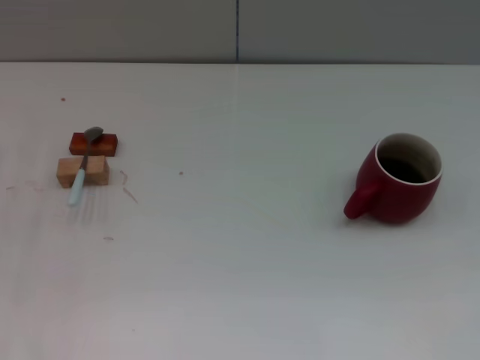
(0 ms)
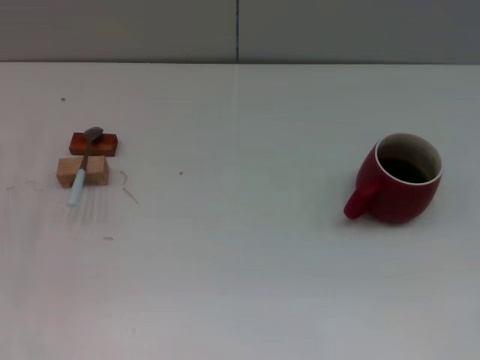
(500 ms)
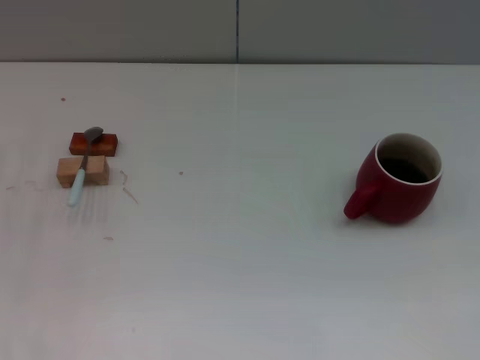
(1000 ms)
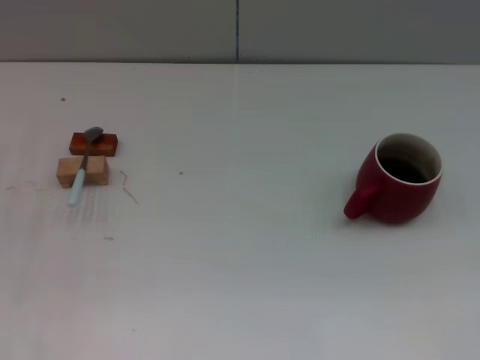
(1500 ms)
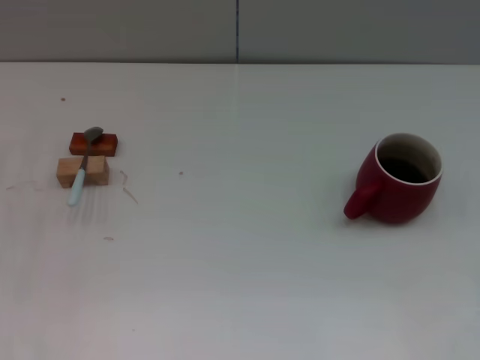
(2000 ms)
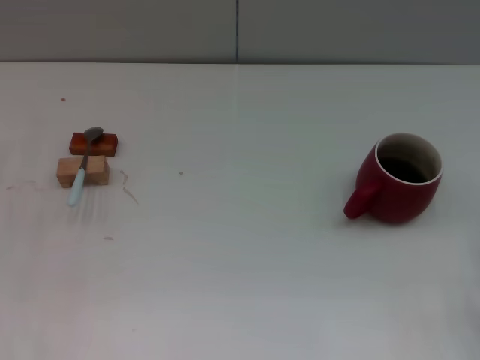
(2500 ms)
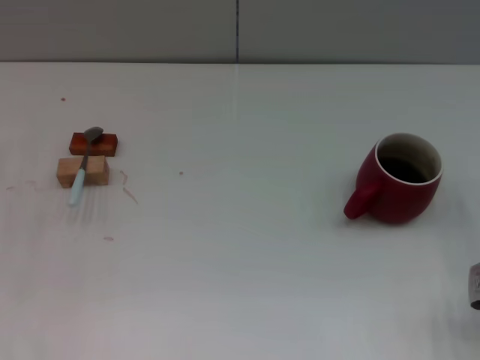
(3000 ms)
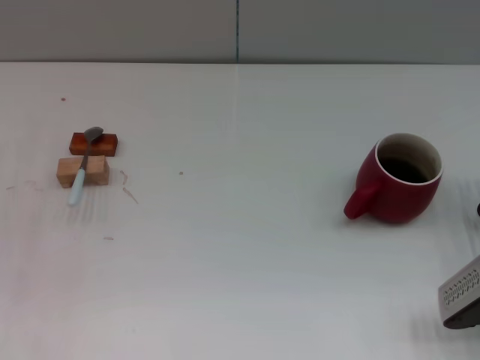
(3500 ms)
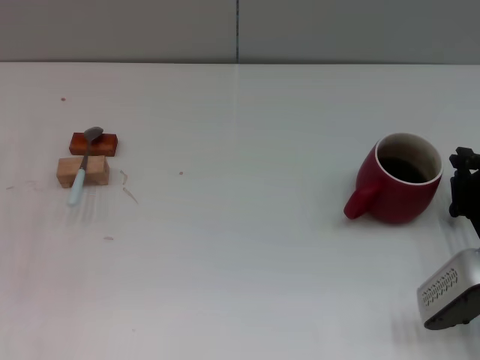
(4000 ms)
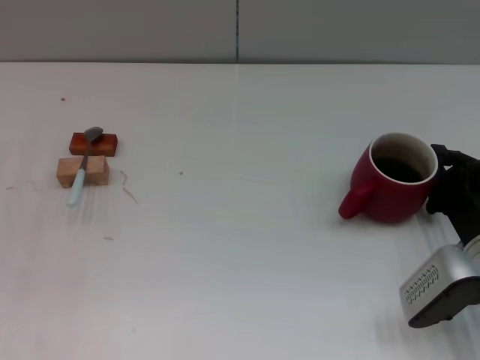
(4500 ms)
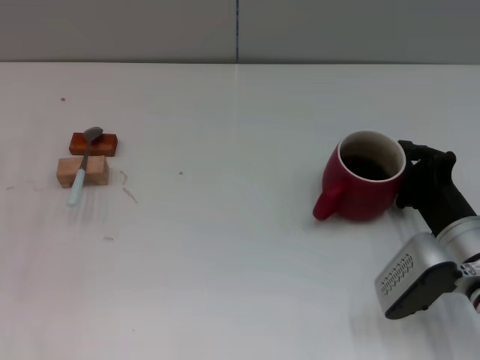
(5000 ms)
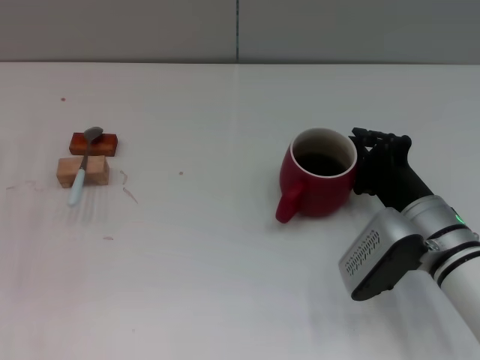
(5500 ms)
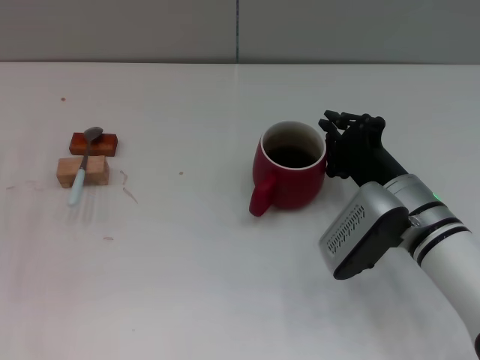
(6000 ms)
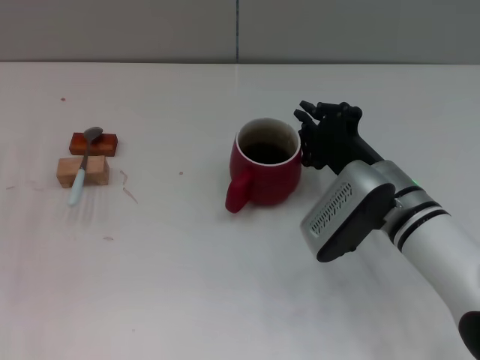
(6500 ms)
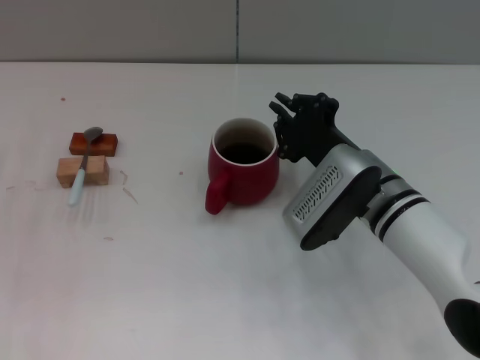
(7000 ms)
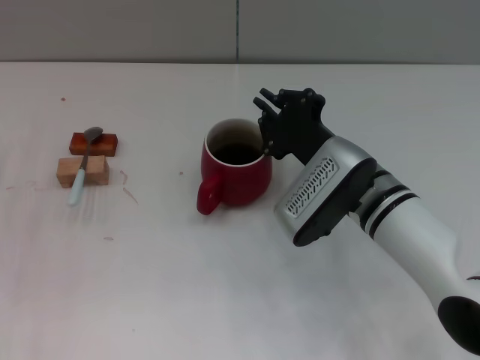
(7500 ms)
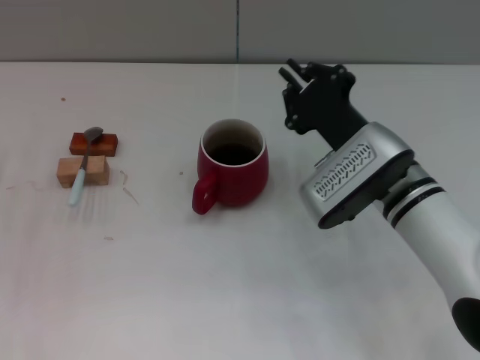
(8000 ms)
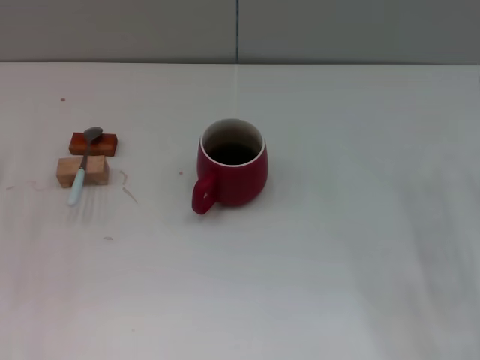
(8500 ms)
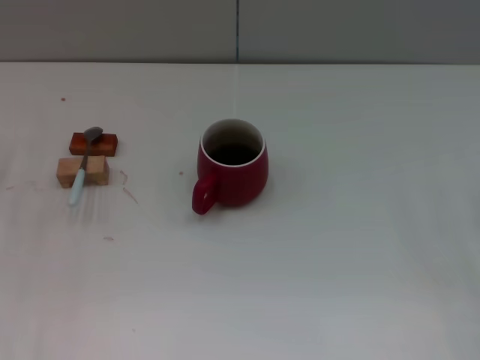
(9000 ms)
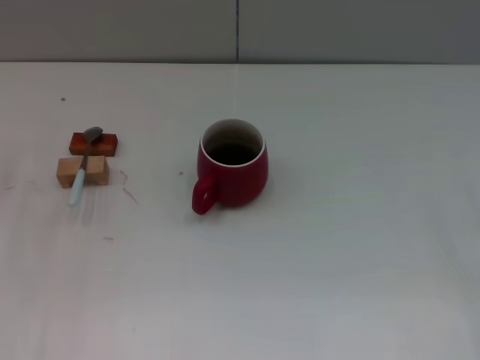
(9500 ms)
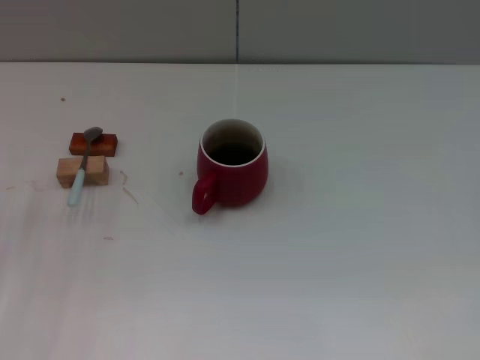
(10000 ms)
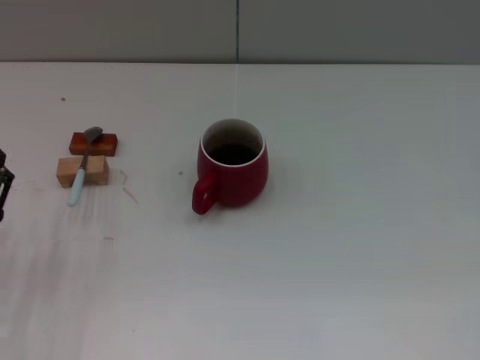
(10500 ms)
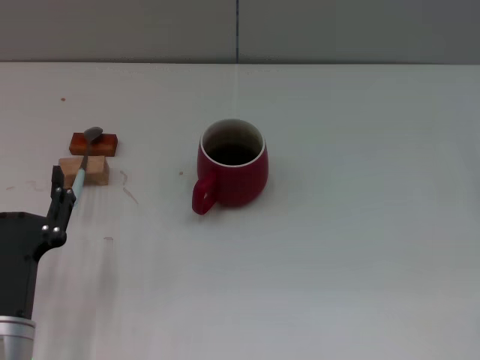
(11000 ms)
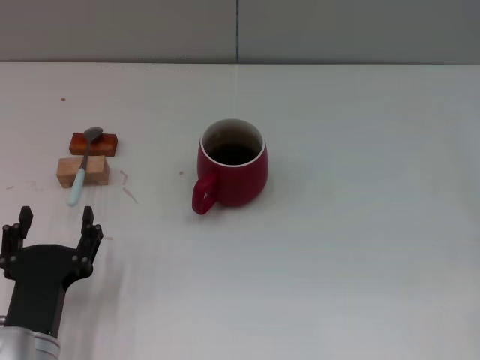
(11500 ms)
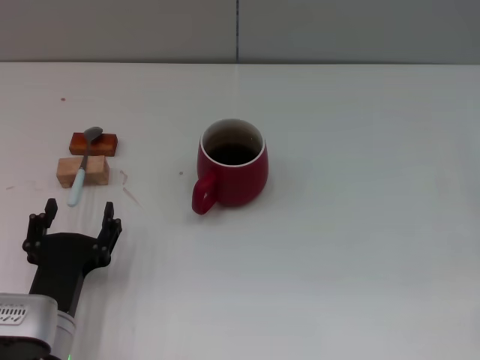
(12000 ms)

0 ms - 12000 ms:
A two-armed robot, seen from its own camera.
Task of the whole recording: Move the red cup to the center, lift the blue spoon, stir it three times in the cup, and put the spoon into the cup.
Step, 0 ms - 8500 ms: Move the cup with coffee to the center of view with the right gripper.
2000 ms - 4000 ms: The right gripper goes roughly 10 cm to the left and downward.
4000 ms - 6000 ms: The right gripper is displaced to the left and forward by roughly 10 cm.
6000 ms - 8000 ms: The right gripper shifts by some 5 cm.
8000 ms - 10000 ms: The left gripper heads backward, covering roughly 5 cm. The right gripper shifts about 25 cm to the right, and opens up.
10000 ms - 12000 ms: The left gripper heads to the right and backward, covering about 15 cm.

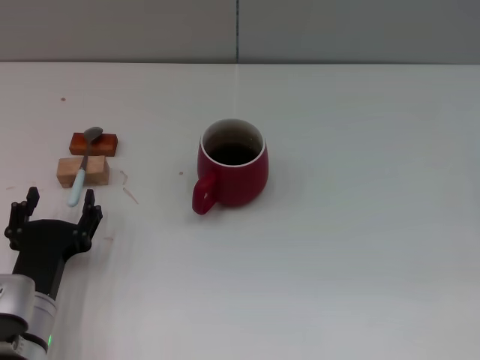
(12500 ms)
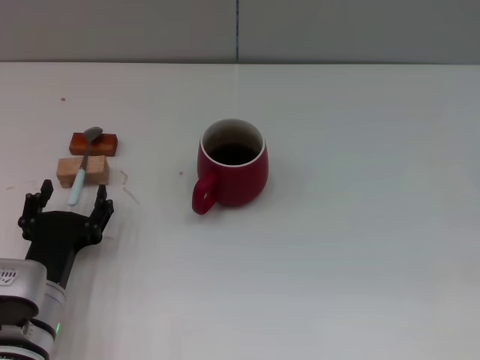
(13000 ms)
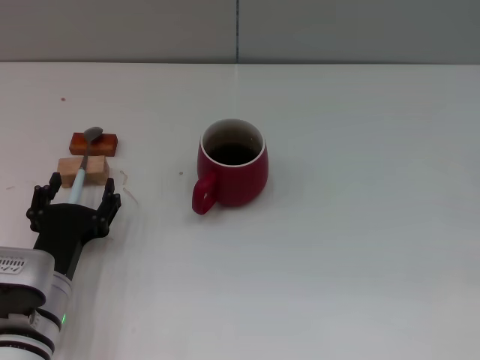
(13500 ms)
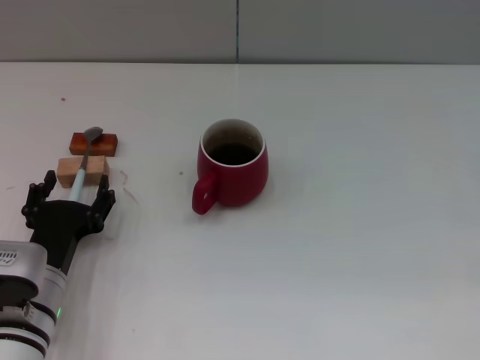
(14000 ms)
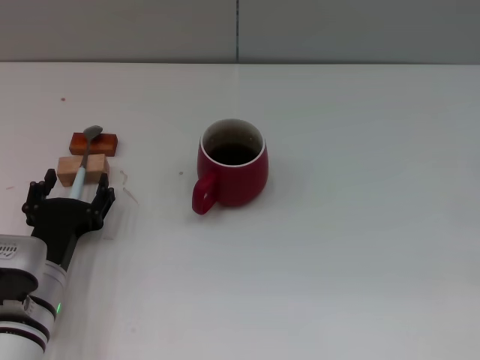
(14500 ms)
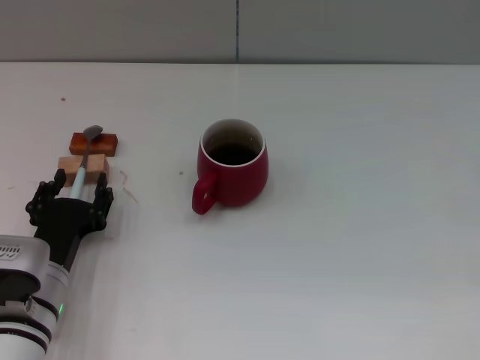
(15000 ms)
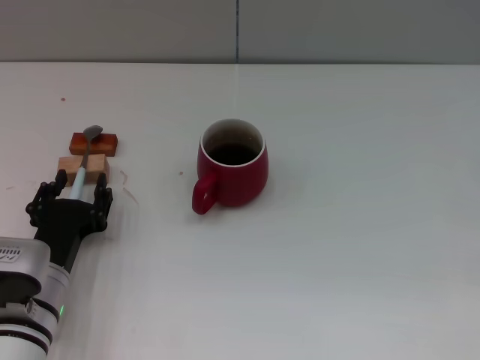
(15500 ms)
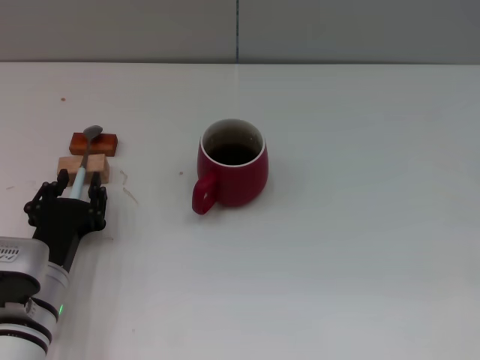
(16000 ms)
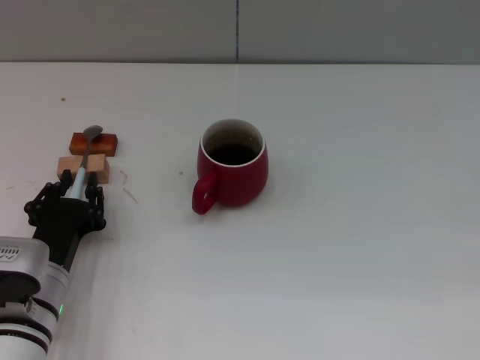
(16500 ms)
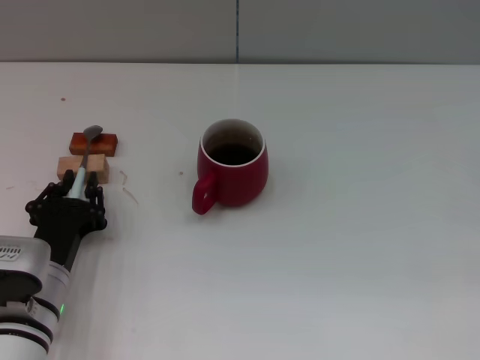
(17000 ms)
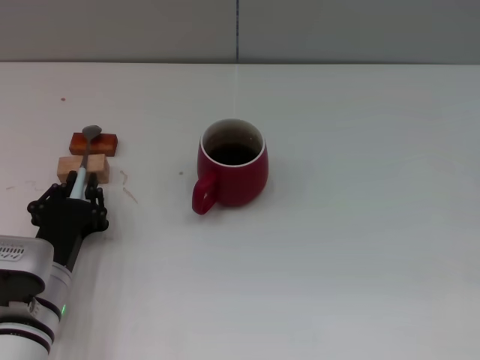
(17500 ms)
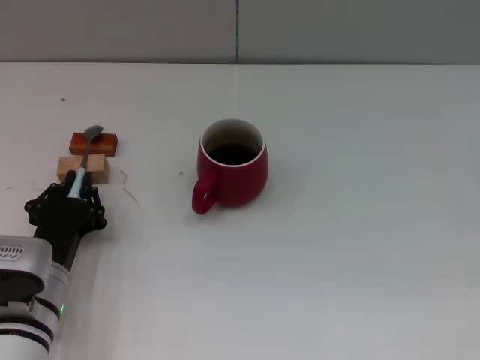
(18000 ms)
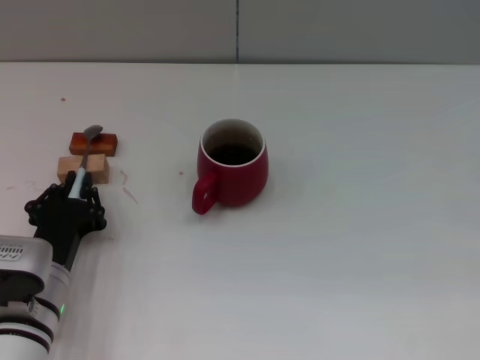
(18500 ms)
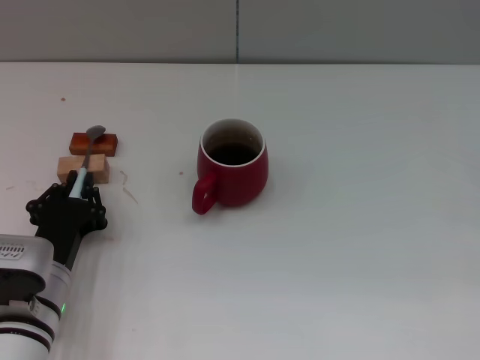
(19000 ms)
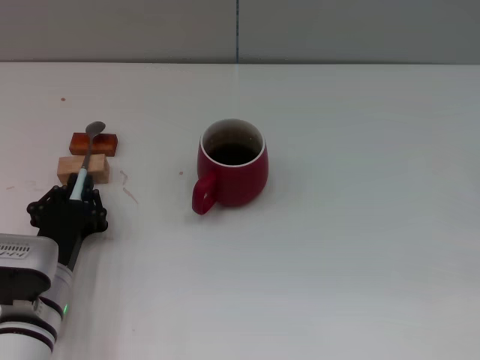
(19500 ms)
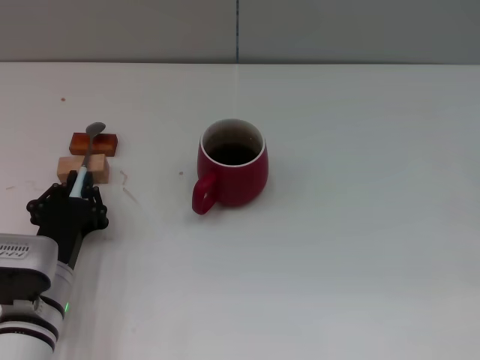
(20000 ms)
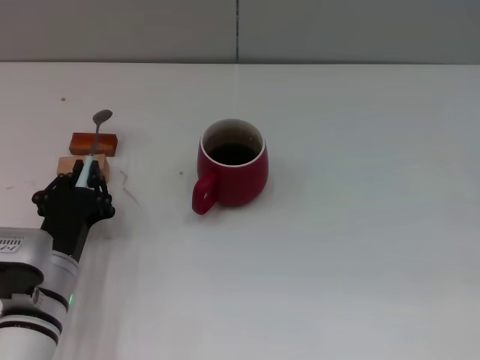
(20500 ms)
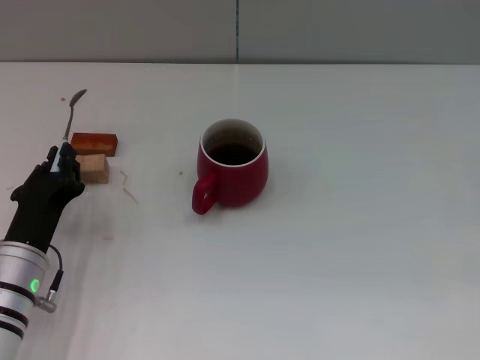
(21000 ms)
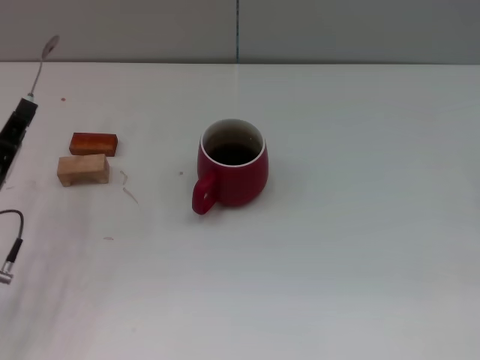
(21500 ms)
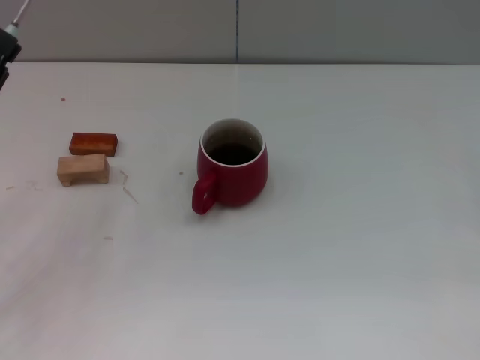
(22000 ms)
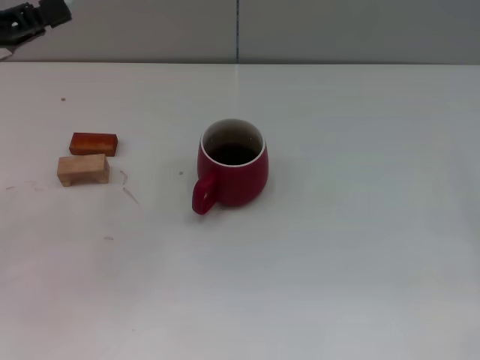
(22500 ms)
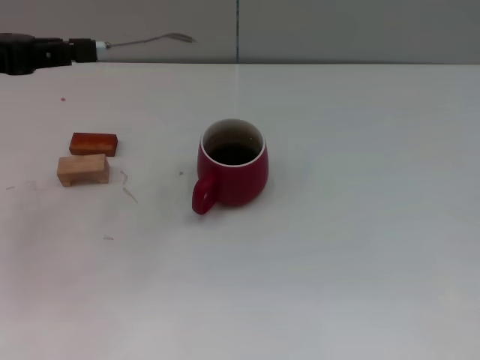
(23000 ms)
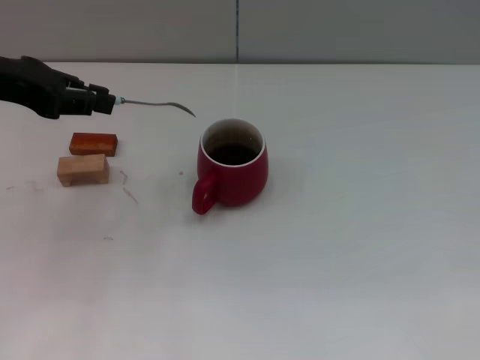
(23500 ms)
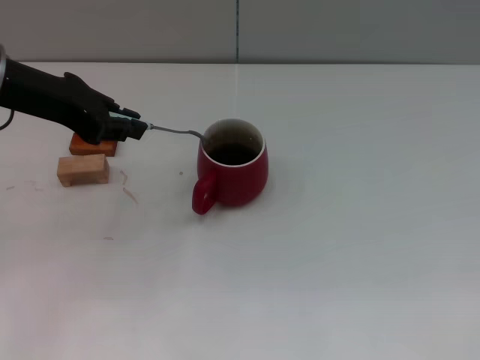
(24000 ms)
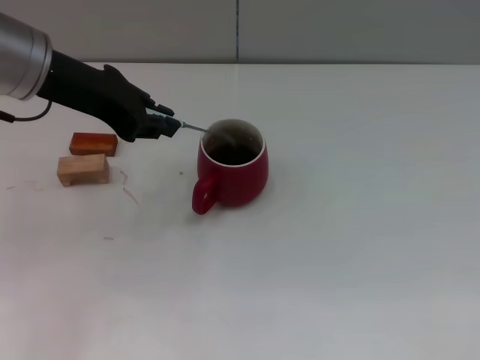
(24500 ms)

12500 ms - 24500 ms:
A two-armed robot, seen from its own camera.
Task of the whole recording: Move the red cup to the center, lift the blue spoon, stir it three times in the cup, and put the spoon into the cup.
Step, 12500 ms - 20500 ms: Pick up the spoon with the left gripper.
12500 ms - 14500 ms: The grippers stay close to where they were, moving slightly.
14500 ms - 16500 ms: The left gripper closes its fingers.
16500 ms - 18500 ms: Both grippers stay put.
18500 ms - 20500 ms: Both grippers stay about where they are.
20500 ms - 22500 ms: The left gripper shifts some 25 cm upward, to the left and forward.
22500 ms - 24500 ms: The left gripper shifts about 15 cm to the right, forward and upward.

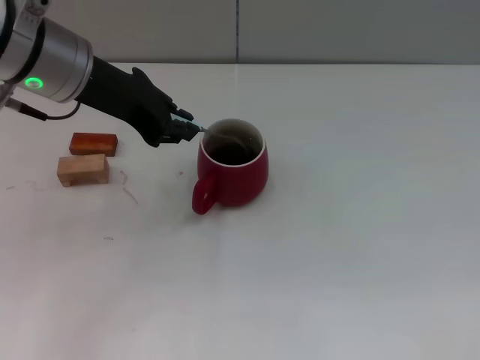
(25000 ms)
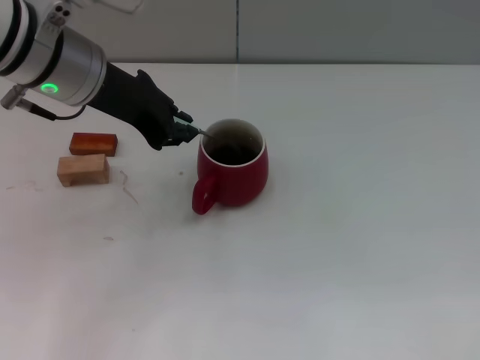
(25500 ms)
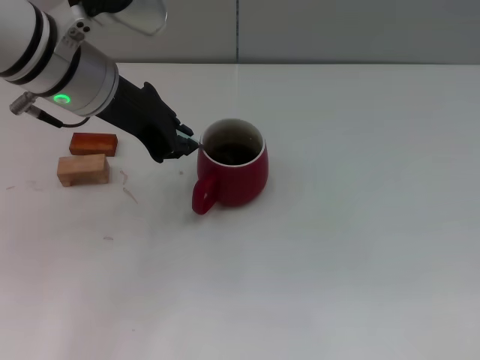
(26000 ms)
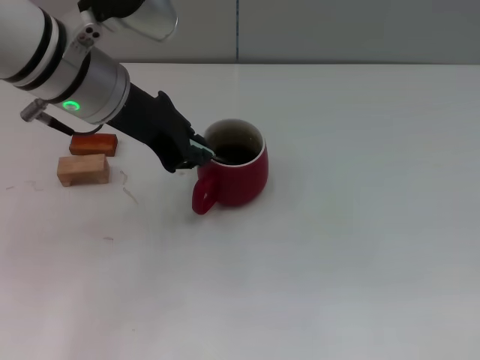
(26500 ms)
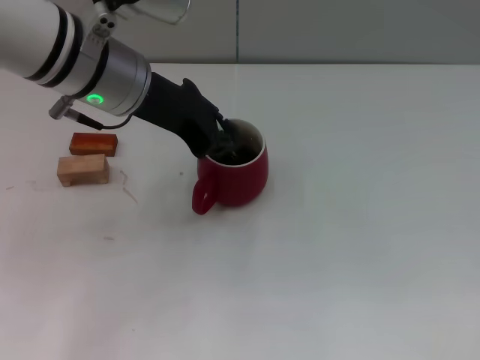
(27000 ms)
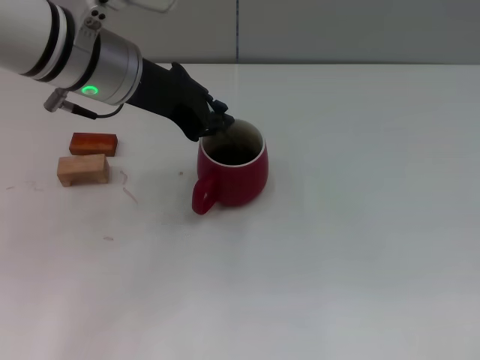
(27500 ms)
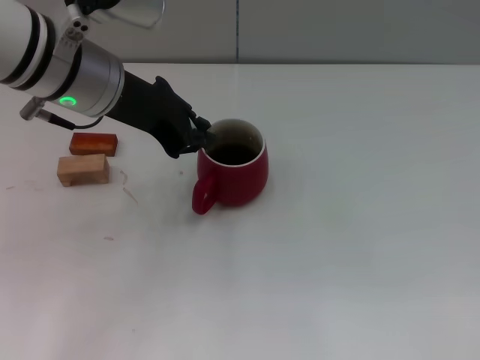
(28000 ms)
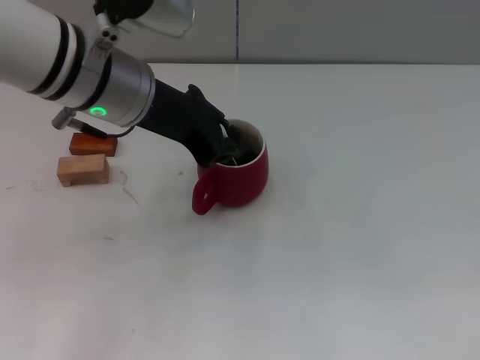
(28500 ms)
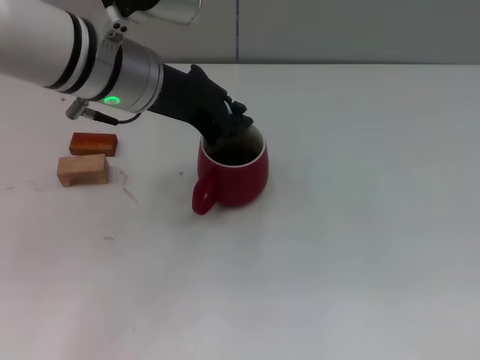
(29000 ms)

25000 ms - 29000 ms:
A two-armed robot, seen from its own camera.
Task of the whole recording: Move the red cup to the center, lift the blue spoon, stir it three times in the cup, and put the spoon into the cup.
25000 ms - 29000 ms: The grippers move only a little.
